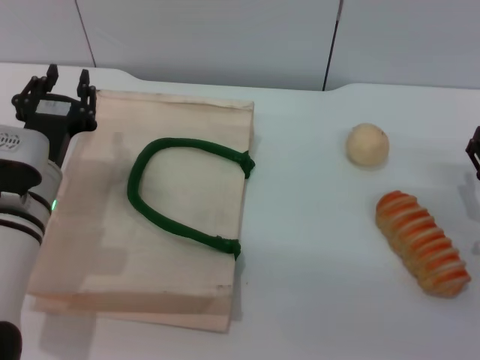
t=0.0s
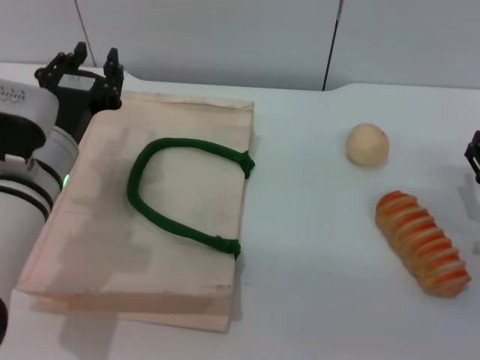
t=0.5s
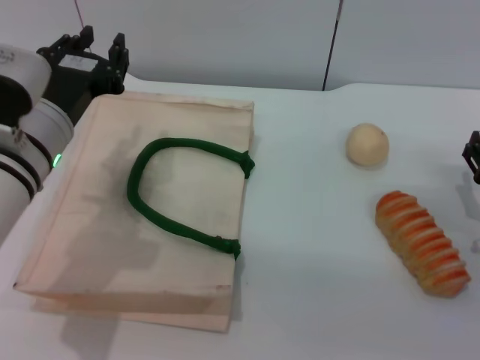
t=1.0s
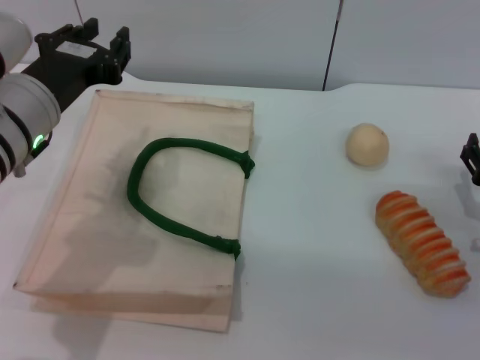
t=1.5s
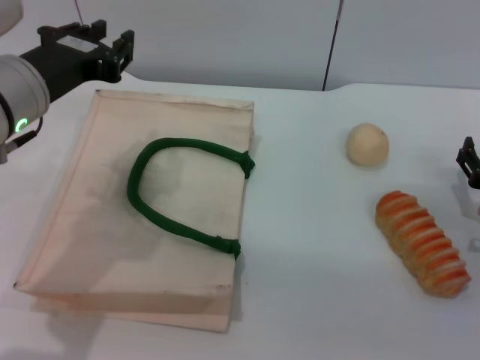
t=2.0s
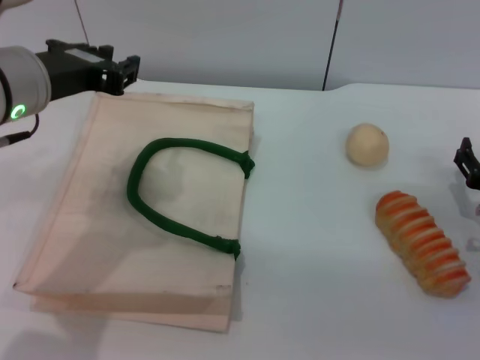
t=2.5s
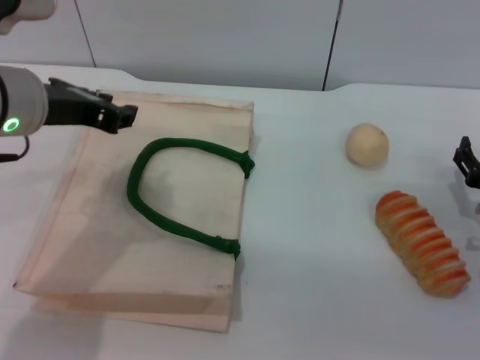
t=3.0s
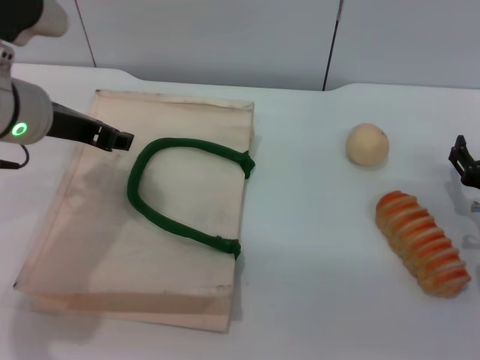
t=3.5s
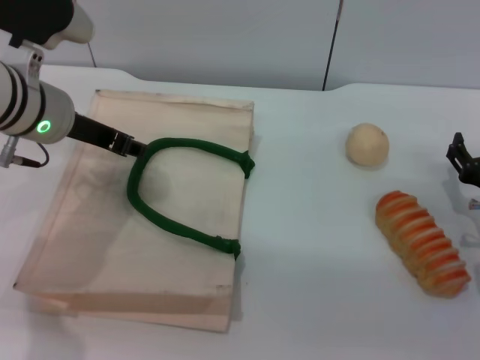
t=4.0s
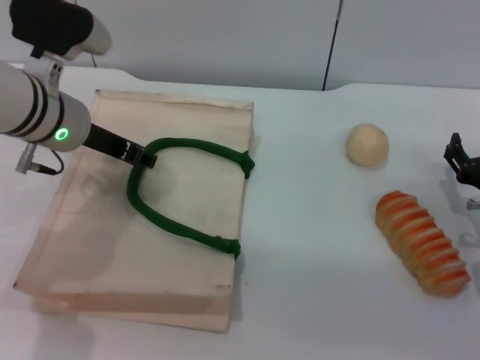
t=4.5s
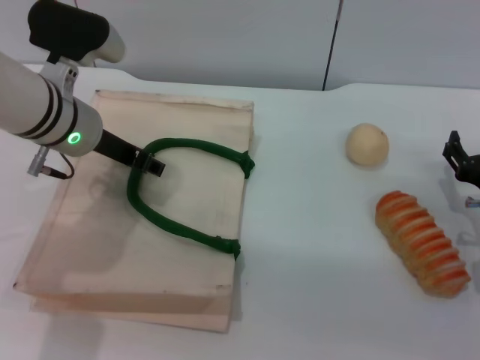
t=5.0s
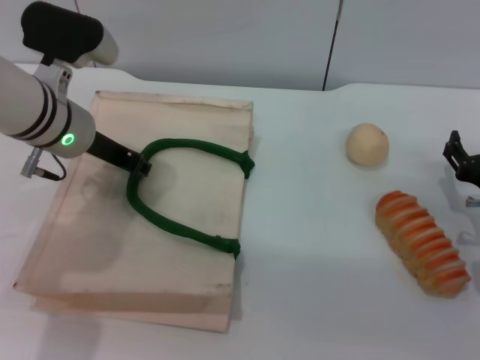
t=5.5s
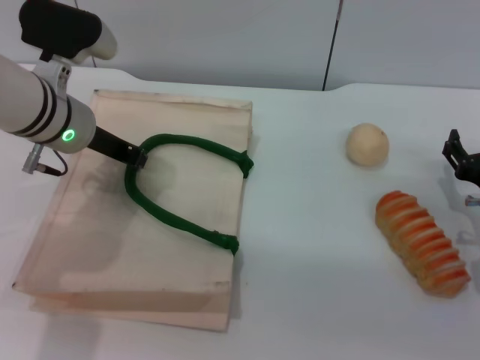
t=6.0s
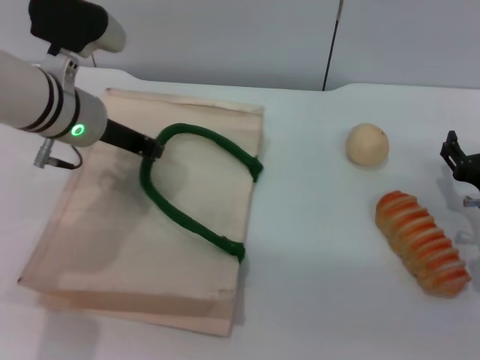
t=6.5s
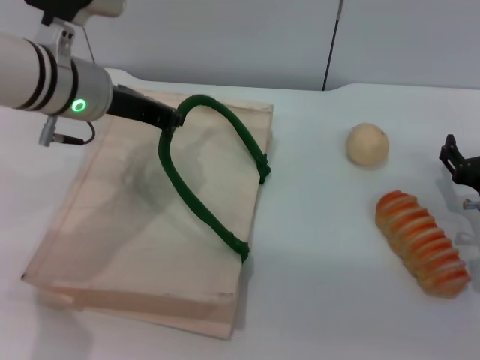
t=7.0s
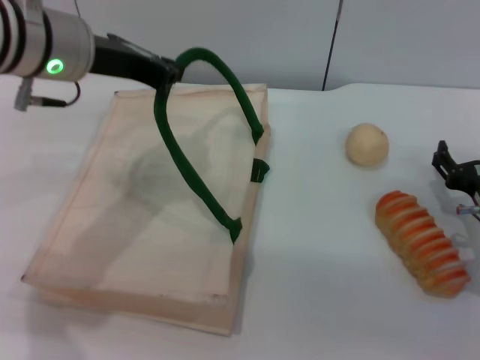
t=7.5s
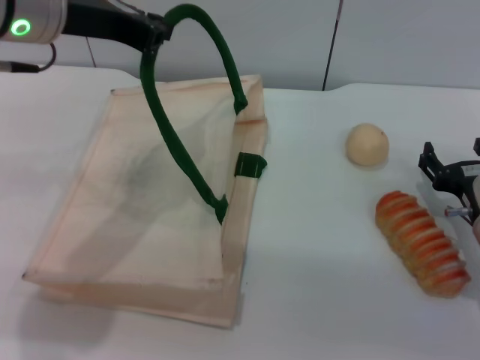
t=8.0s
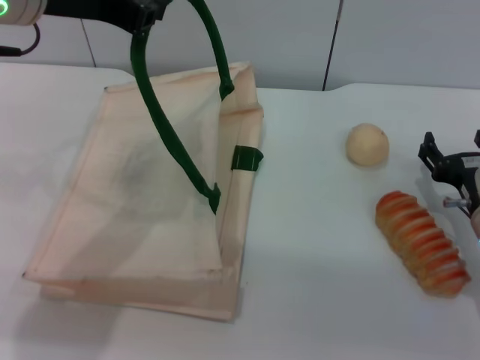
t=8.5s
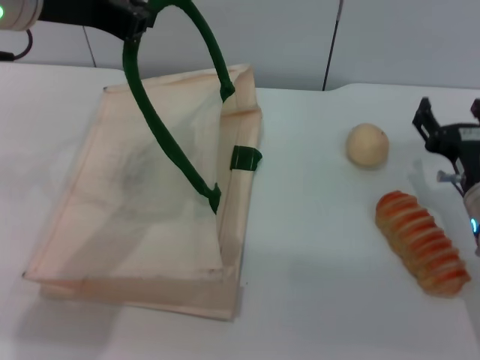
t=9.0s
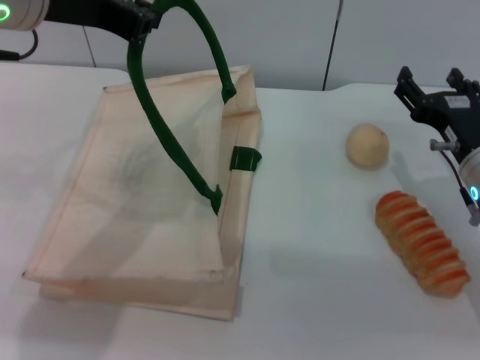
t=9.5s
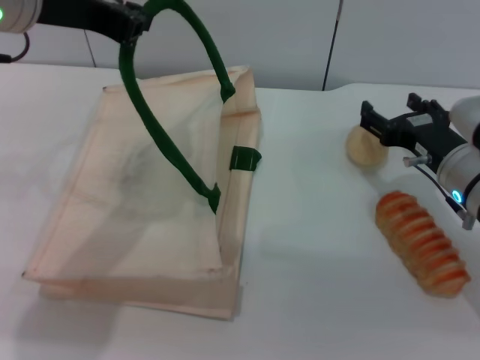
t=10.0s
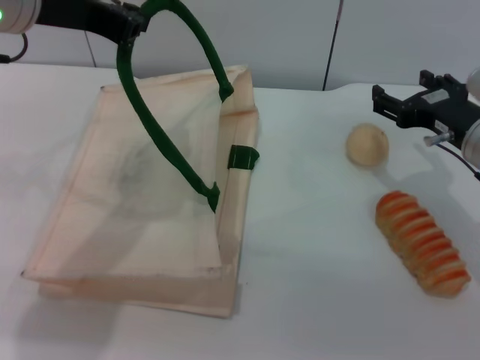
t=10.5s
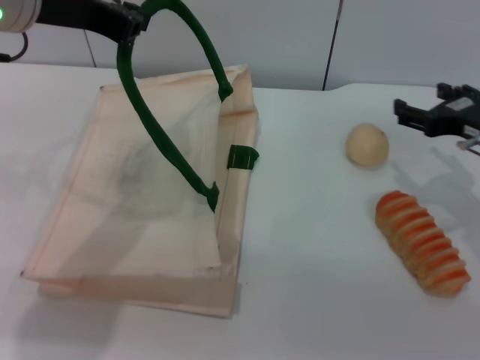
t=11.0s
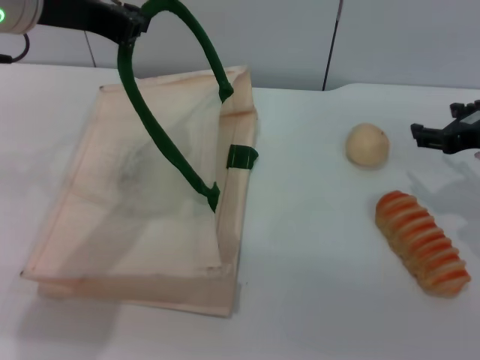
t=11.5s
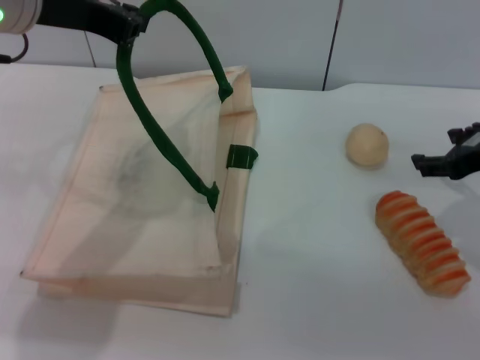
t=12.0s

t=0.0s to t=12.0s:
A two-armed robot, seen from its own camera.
Task of the whole recording: pick up the bread and egg yolk pastry from the table and place it in the white handbag.
Step, t=0.0s to t=8.5s: Lift the woven bag with the left gripper to open it.
t=0.0s to t=2.0s: The left gripper travels upward by approximately 15 cm.
t=2.0s to t=4.0s: The left gripper travels forward by roughly 5 cm, and opens its fingers.
t=4.0s to t=6.0s: The left gripper closes up.
t=6.0s to t=8.0s: The left gripper heads upward, covering some 15 cm.
t=8.0s to t=10.0s: The right gripper shifts approximately 5 cm upward.
t=10.0s to t=12.0s: The right gripper heads upward and to the right, covering roughly 10 cm.

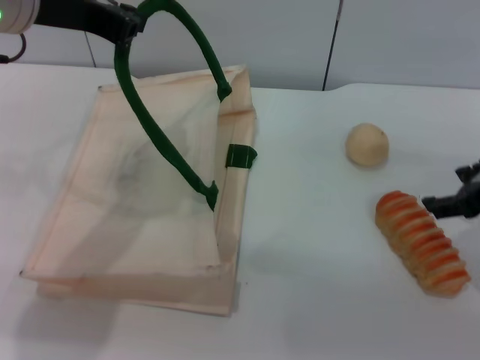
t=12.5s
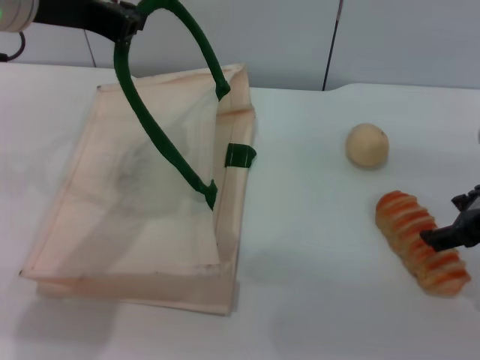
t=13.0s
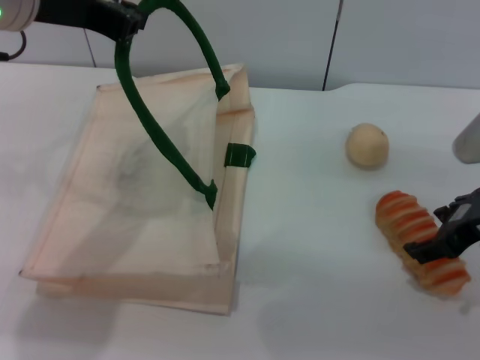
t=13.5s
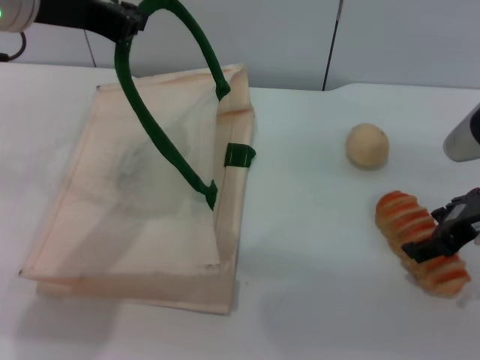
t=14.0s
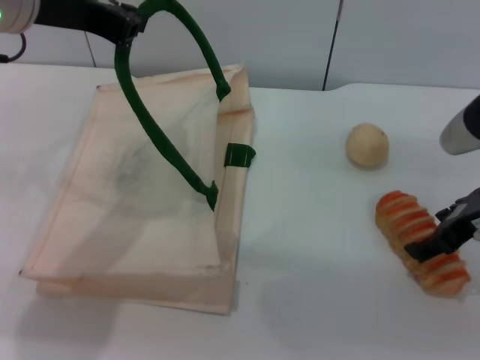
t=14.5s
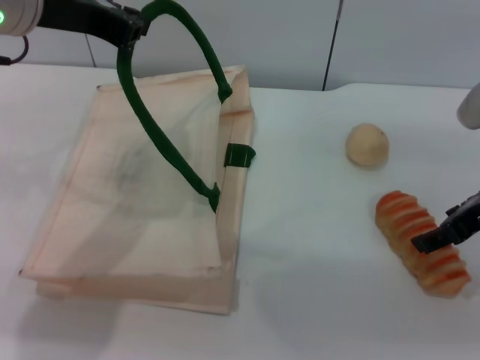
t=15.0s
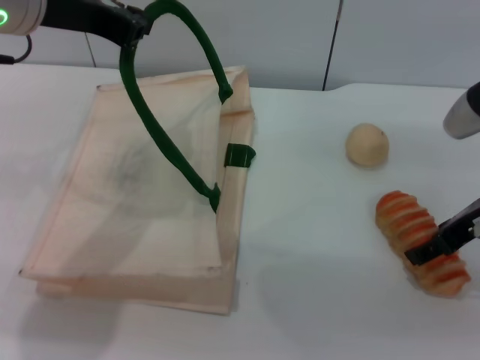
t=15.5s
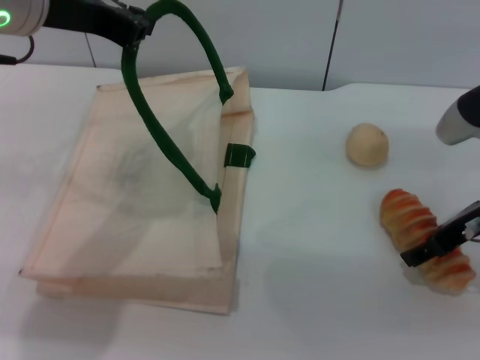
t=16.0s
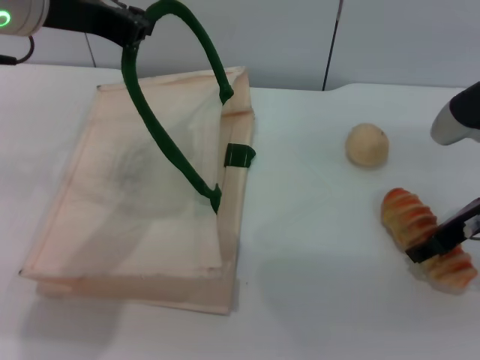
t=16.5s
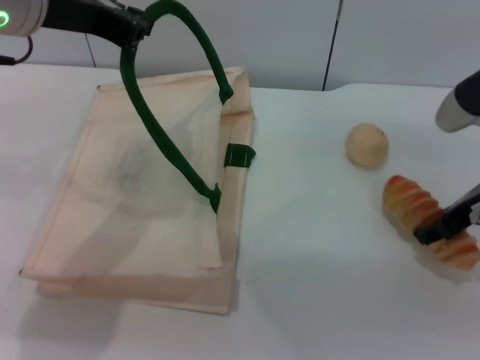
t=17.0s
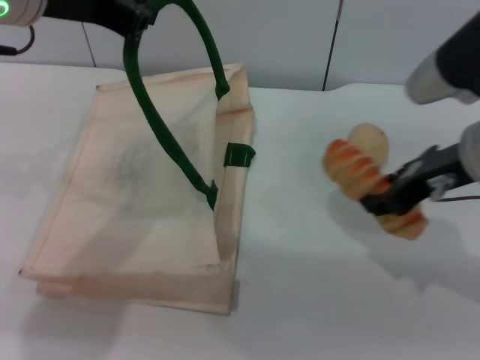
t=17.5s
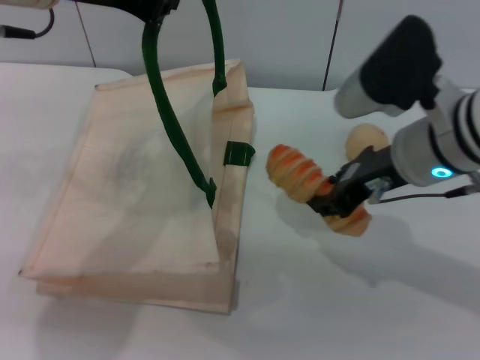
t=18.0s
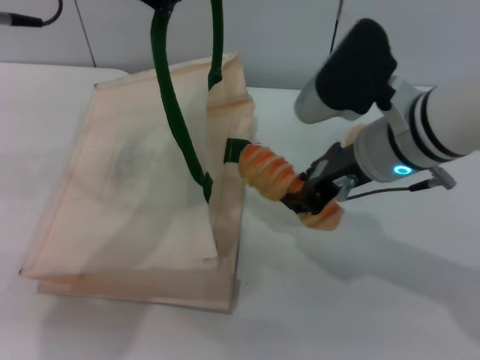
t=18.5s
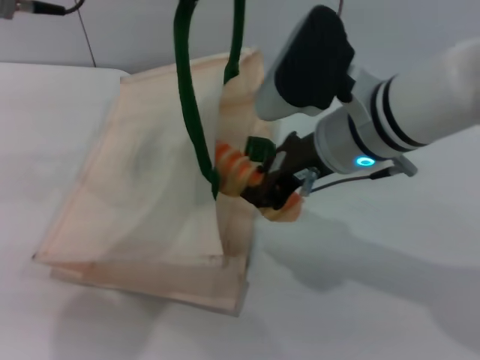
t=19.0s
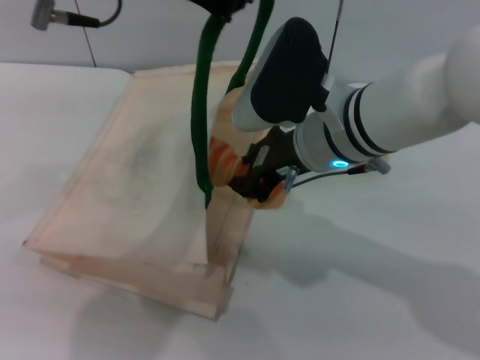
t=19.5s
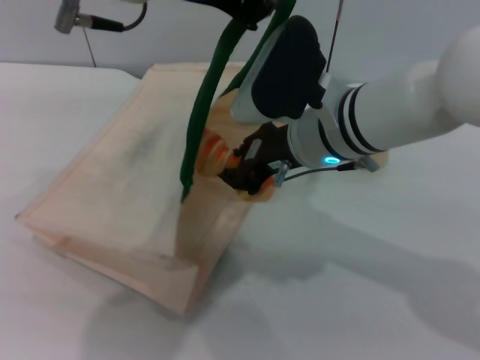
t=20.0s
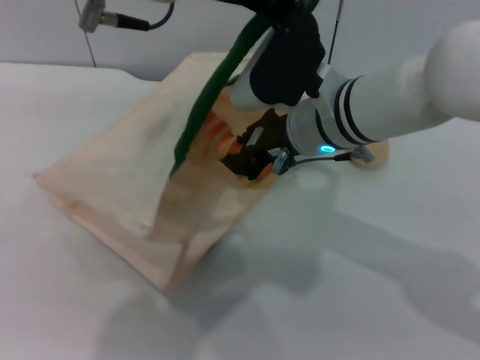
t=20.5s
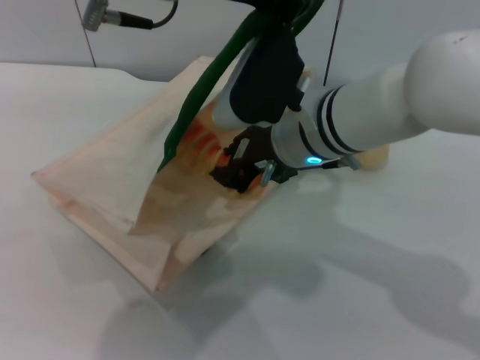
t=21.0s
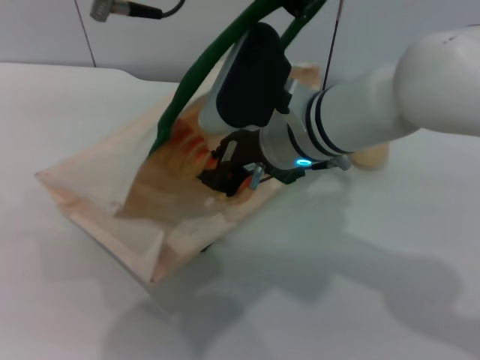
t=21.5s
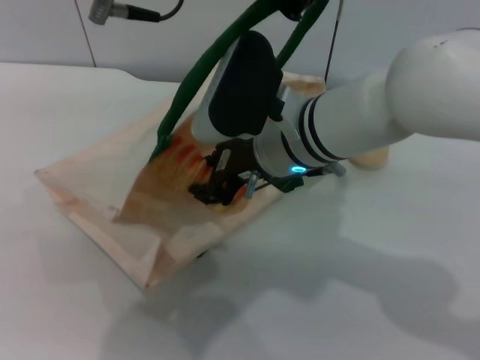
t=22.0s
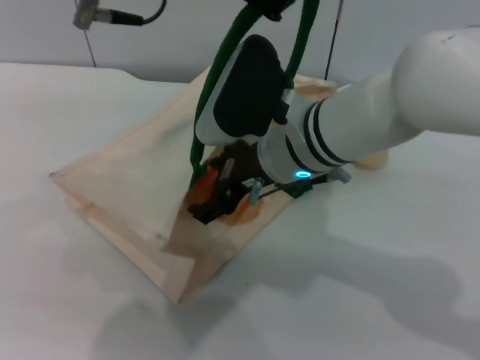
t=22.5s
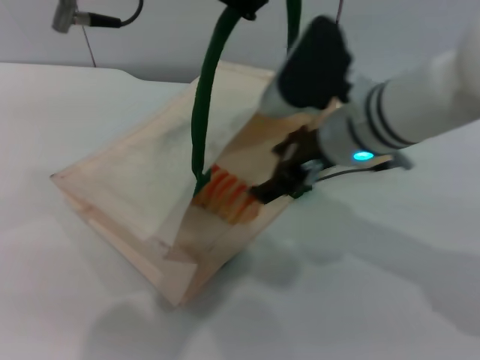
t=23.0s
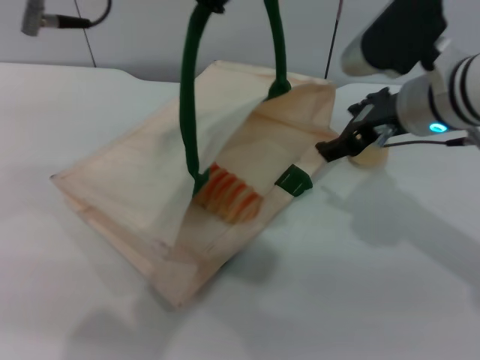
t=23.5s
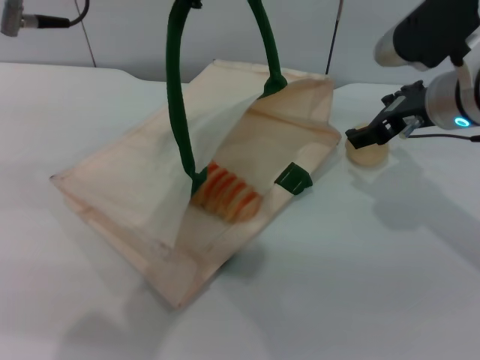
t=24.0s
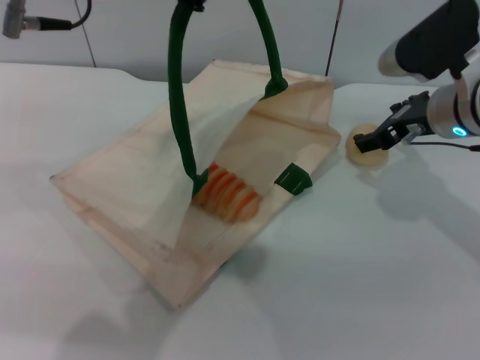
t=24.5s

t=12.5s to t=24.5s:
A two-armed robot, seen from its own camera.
Task of the whole recording: pick up the bread and egg yolk pastry from the table and place it in the white handbag.
Step, t=12.5s to t=17.0s: Pick up the bread with the right gripper.
Step, t=17.5s to t=22.5s: Place the bread into the woven bag with the right gripper.
t=12.5s to t=14.5s: The grippers stay close to where they were, moving slightly.
t=14.5s to t=16.5s: There are only small adjustments of the grippers.
t=16.5s to t=18.5s: The right gripper is displaced to the left by some 10 cm, and closes its fingers.
t=18.5s to t=20.5s: The left gripper shifts roughly 10 cm to the right, while the right gripper goes some 5 cm to the left.
t=20.5s to t=22.5s: The right gripper opens its fingers.
t=22.5s to t=24.5s: The right gripper travels to the right by approximately 15 cm.

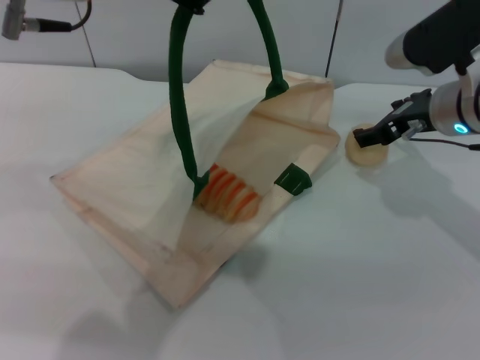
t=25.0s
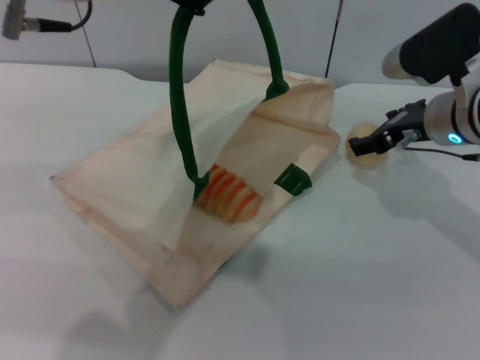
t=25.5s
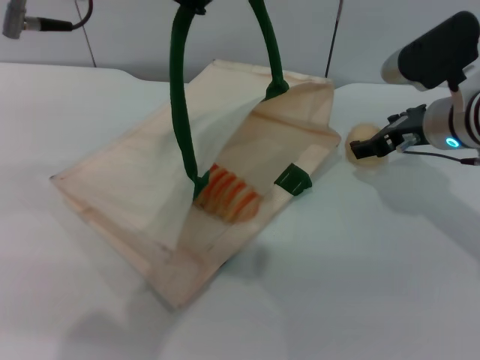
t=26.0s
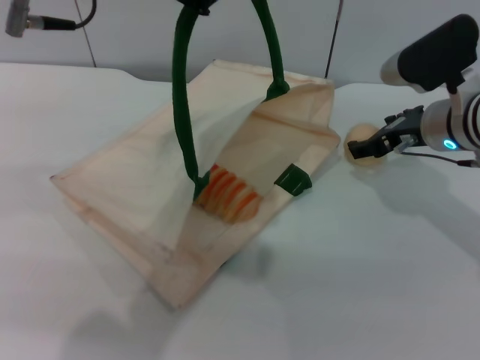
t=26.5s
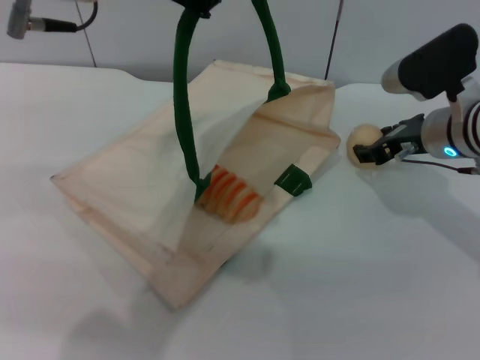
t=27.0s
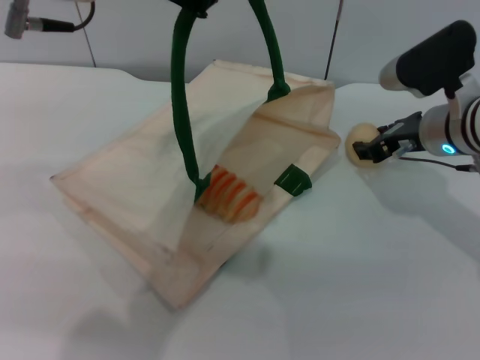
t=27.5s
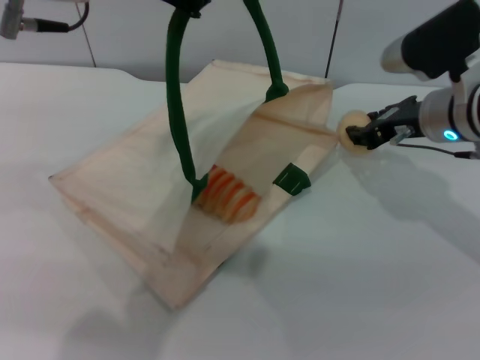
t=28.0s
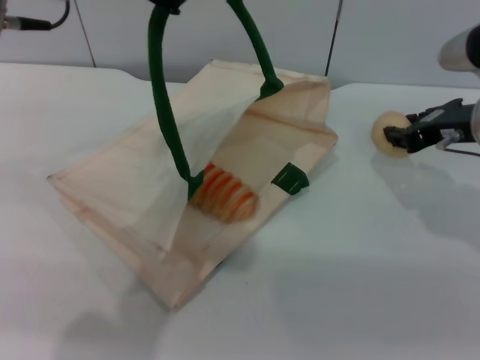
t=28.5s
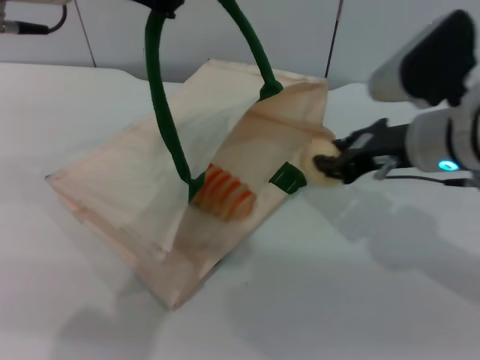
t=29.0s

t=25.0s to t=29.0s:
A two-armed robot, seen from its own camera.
Task of the whole recording: pick up the bread and egg yolk pastry from the table and place it in the white handbag.
Step, t=25.0s to t=27.5s: Pick up the egg yolk pastry with the right gripper.
t=25.0s to t=27.0s: The right gripper closes.
t=27.0s to t=29.0s: The right gripper travels backward and upward by approximately 10 cm, and closes.
